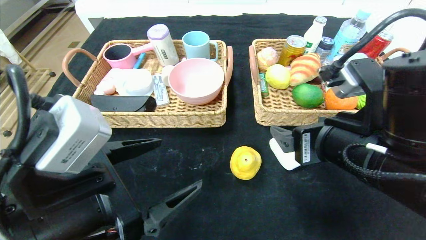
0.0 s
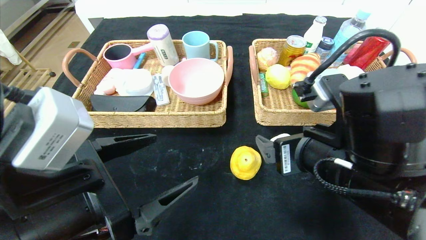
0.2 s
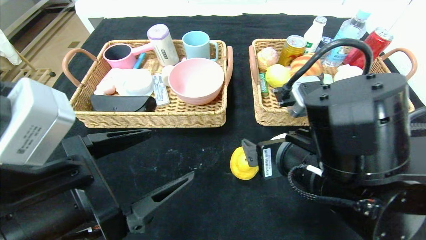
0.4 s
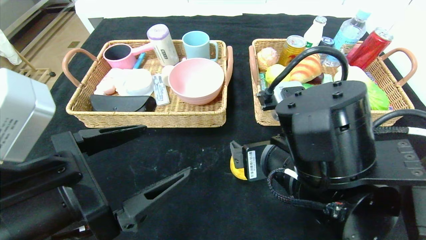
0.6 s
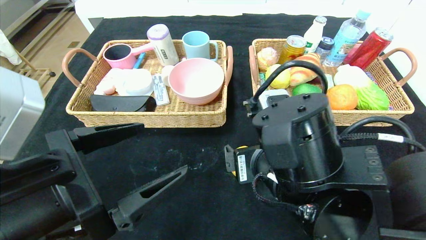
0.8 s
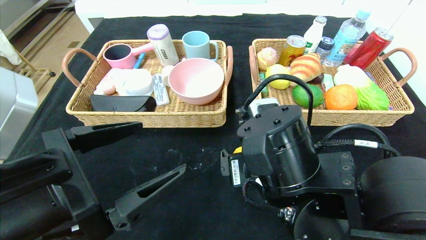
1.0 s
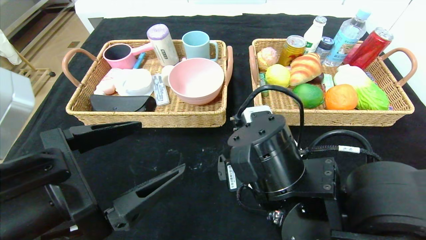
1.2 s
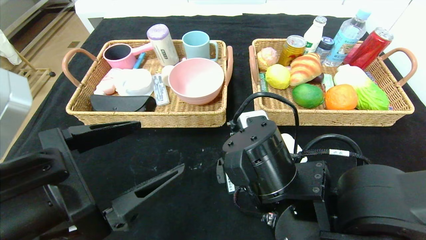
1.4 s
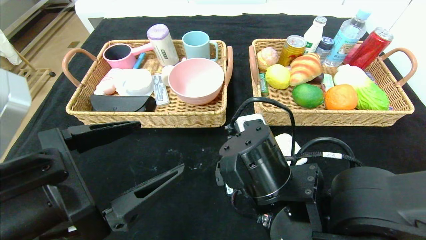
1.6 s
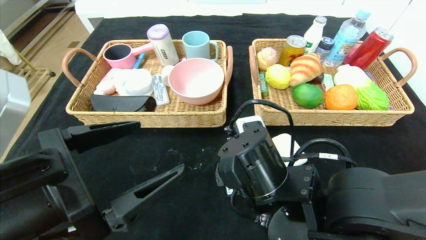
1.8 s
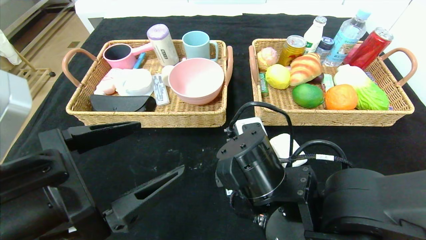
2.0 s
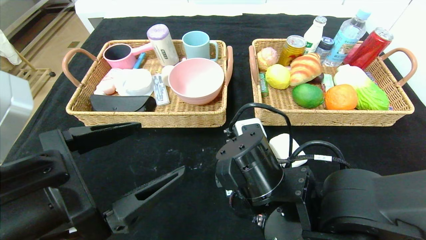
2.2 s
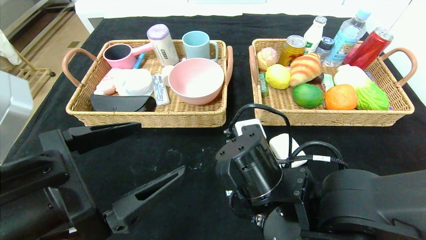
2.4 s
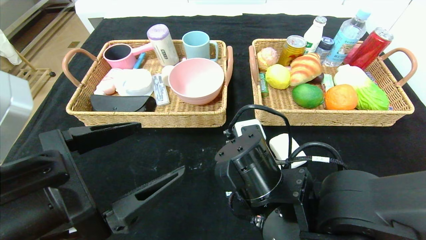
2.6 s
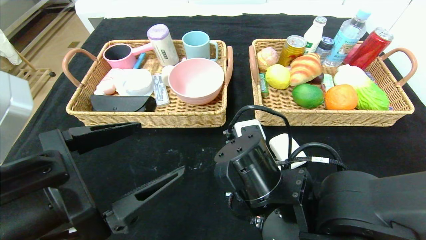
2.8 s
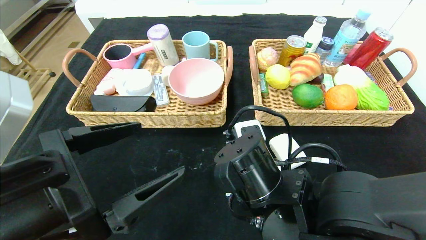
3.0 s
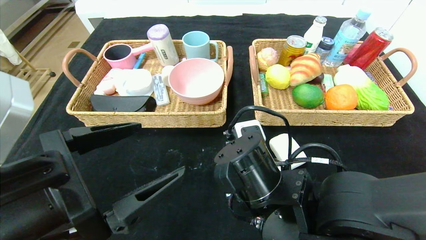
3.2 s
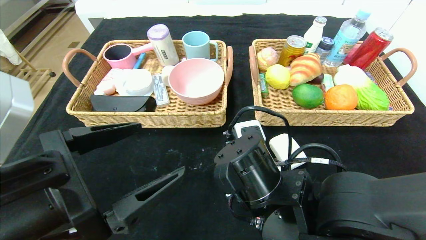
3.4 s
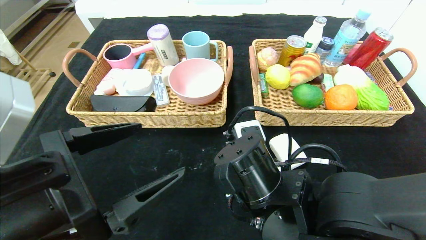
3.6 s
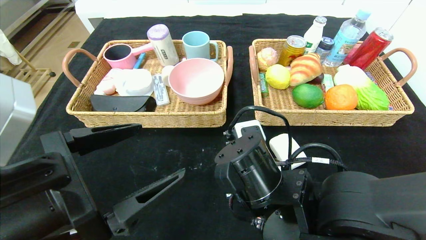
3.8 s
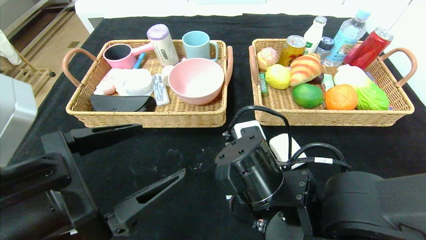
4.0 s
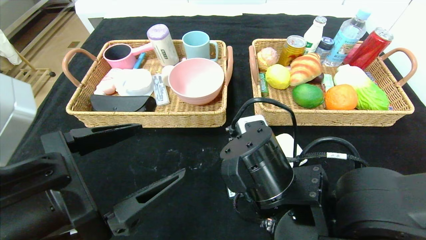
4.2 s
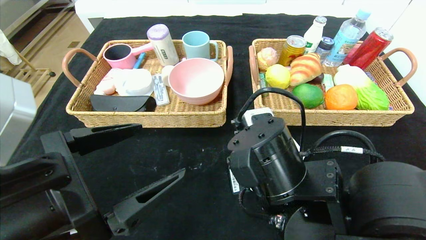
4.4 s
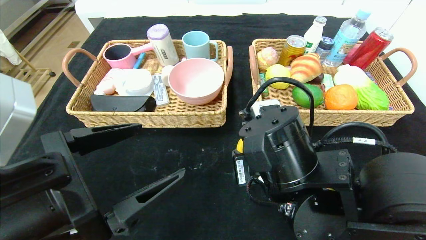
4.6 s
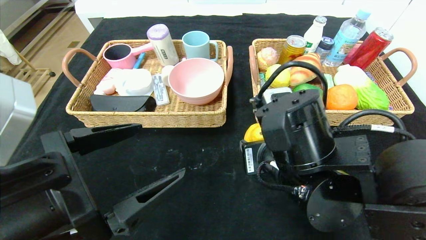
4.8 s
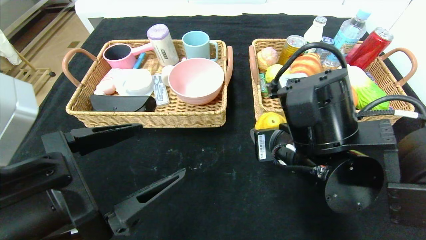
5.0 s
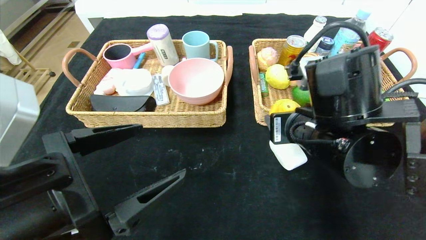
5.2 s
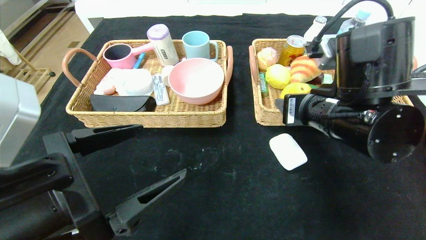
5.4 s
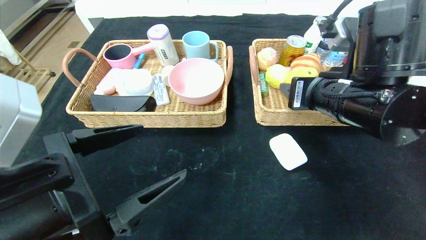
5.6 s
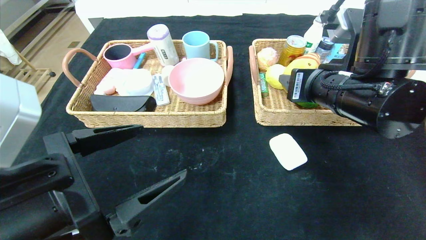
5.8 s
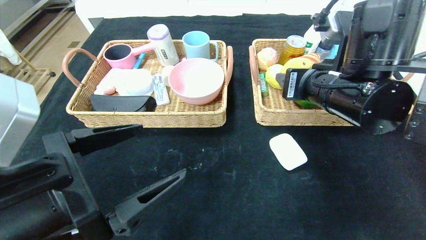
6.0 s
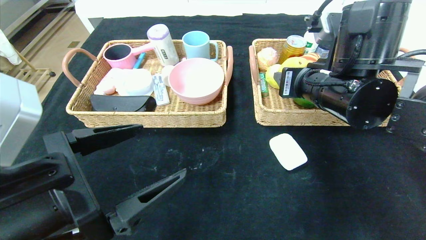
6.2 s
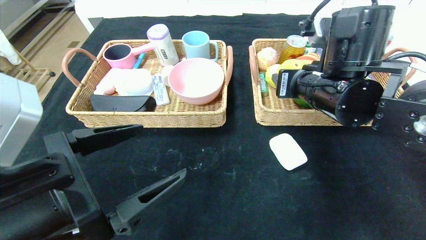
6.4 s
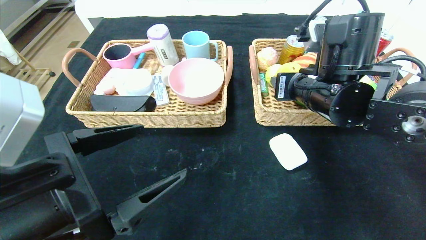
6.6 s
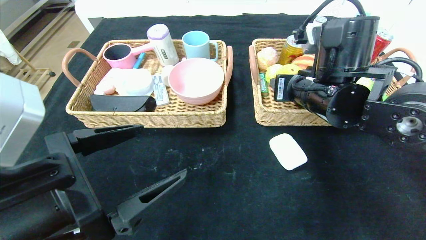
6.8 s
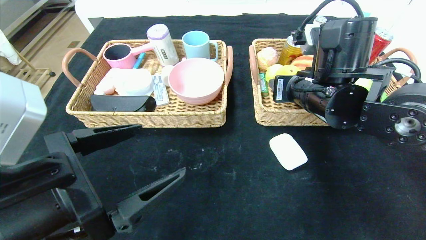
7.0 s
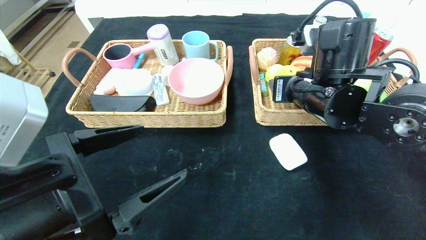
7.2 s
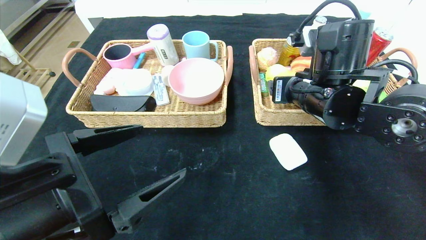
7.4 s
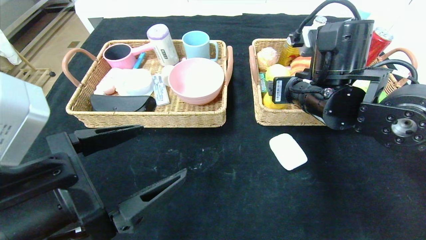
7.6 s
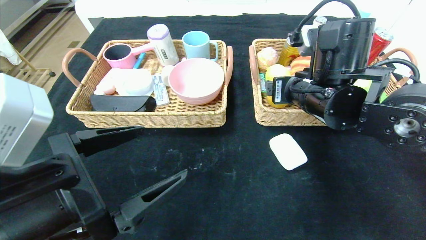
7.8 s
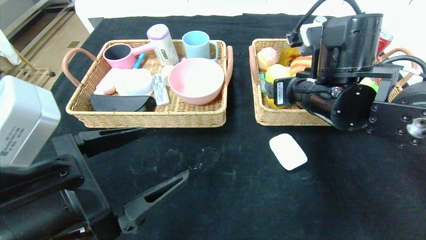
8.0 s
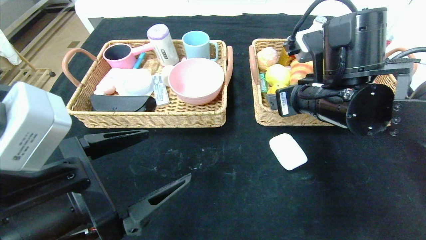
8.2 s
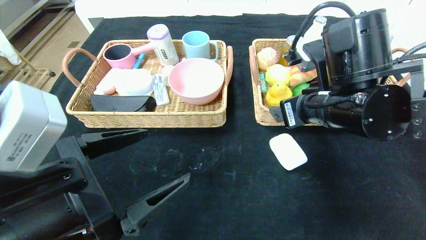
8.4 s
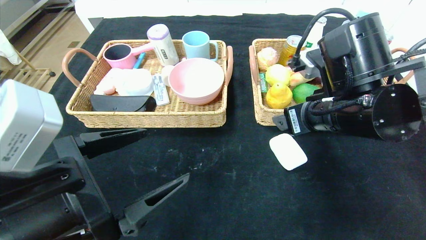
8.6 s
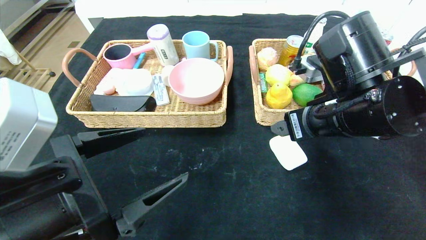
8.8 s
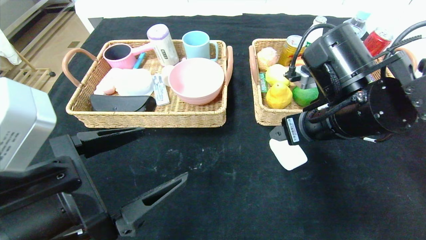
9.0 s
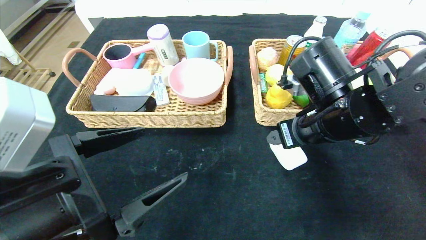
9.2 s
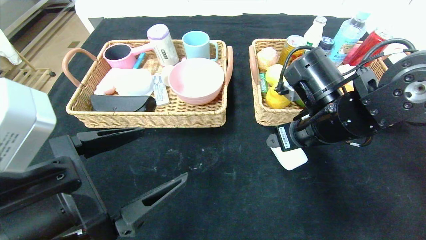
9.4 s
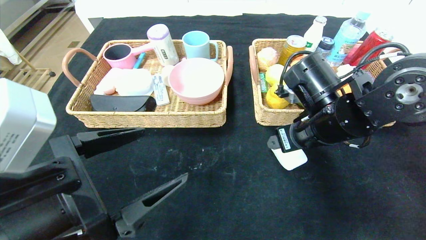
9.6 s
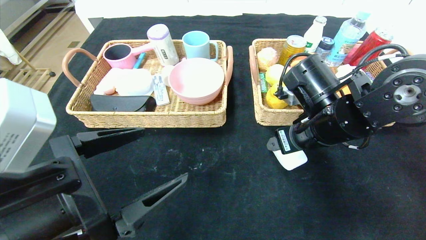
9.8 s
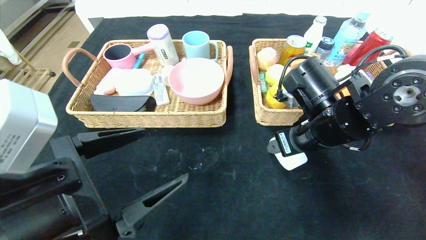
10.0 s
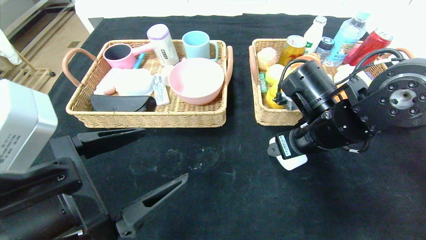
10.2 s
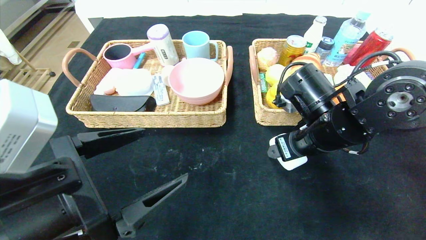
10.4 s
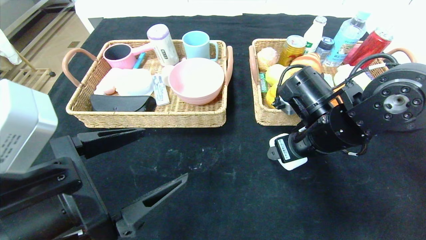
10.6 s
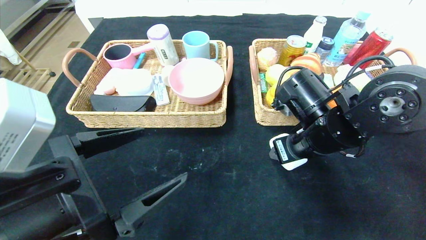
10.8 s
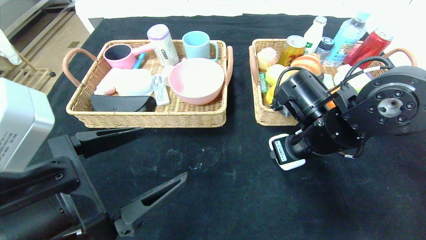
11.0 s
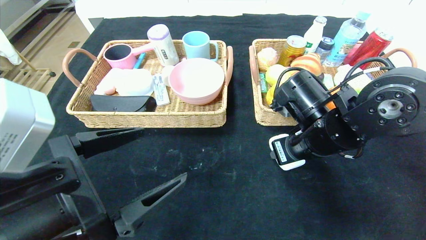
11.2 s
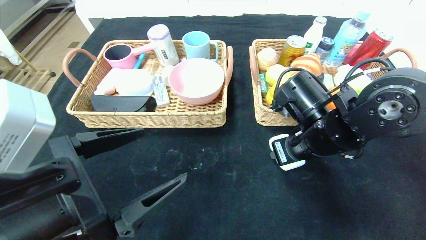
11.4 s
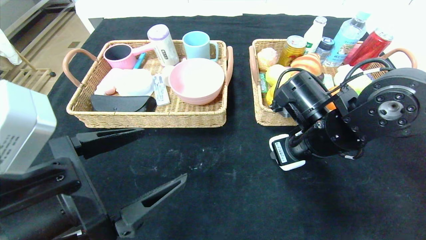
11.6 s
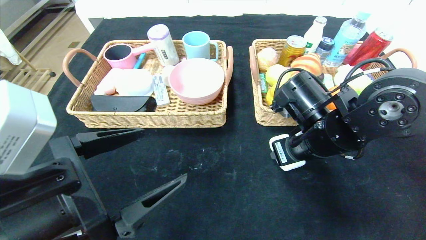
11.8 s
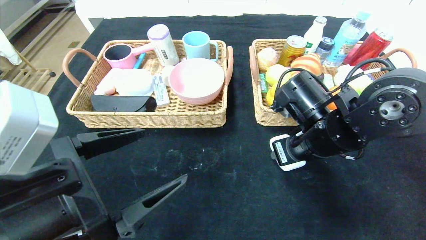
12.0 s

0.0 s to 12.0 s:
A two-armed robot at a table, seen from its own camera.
Step, 0.0 to 8.4 s: Pick up the pear and put it in the right basket.
0.0 to 1.6 s: The right gripper goes some 10 cm to the left and downward.
1.6 to 3.0 s: The right gripper closes its fingers.
3.0 to 4.4 s: The grippers stay close to where they were, moving slightly.
4.4 to 6.0 s: The right gripper is displaced upward, to the right and forward by about 15 cm.
6.0 to 7.6 s: The right gripper opens its fingers.
7.6 to 9.0 s: The right gripper shifts by roughly 5 cm.
9.0 to 10.4 s: The grippers move only a little.
10.4 to 12.0 s: The right gripper closes its fingers.

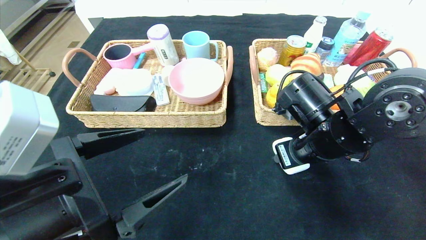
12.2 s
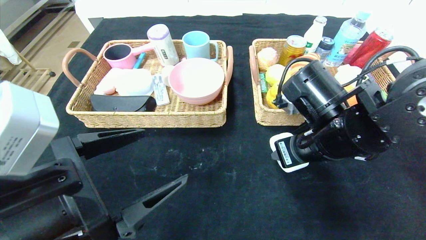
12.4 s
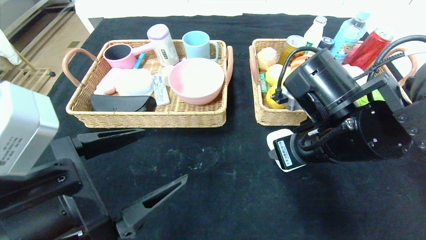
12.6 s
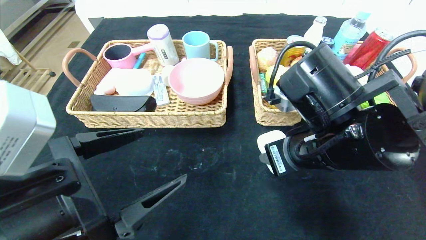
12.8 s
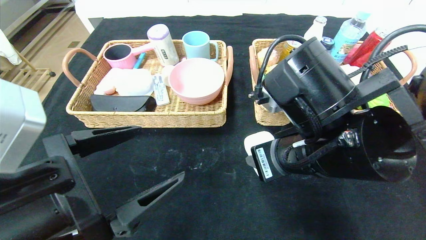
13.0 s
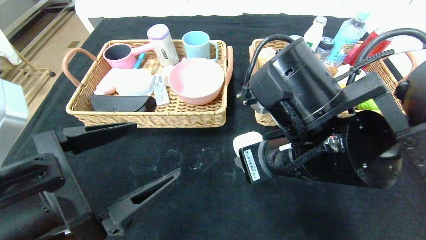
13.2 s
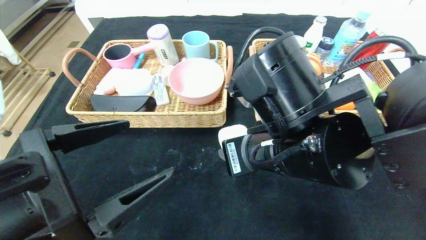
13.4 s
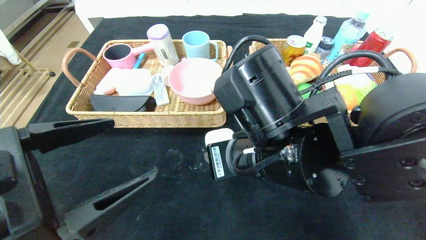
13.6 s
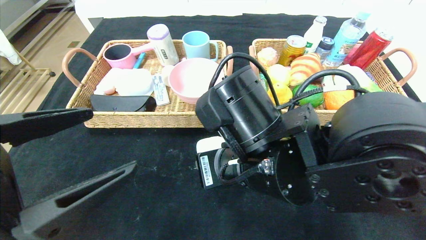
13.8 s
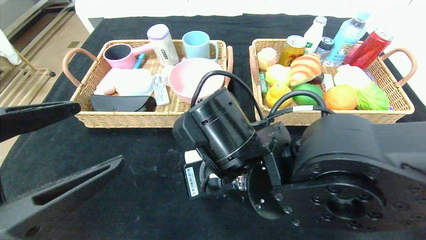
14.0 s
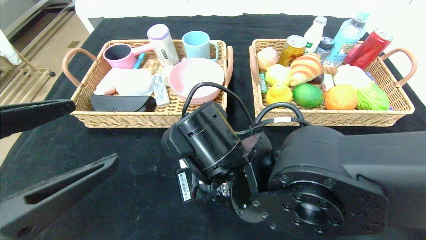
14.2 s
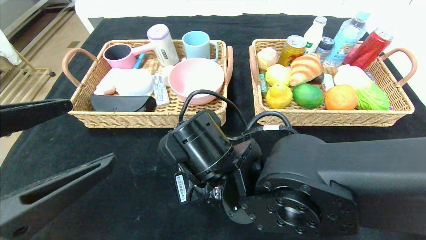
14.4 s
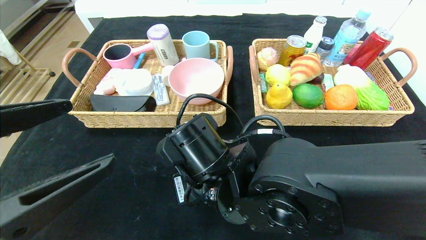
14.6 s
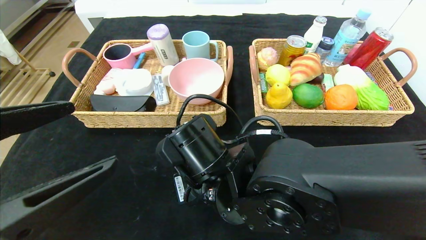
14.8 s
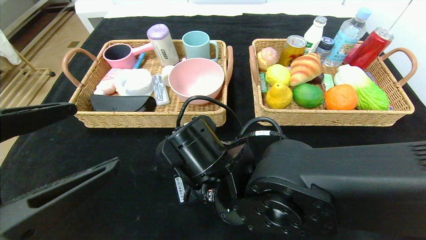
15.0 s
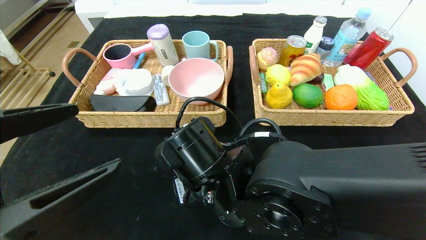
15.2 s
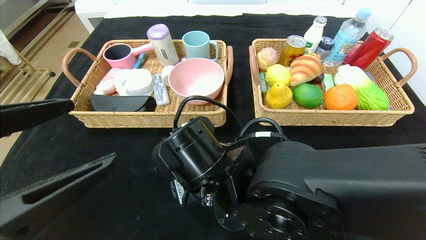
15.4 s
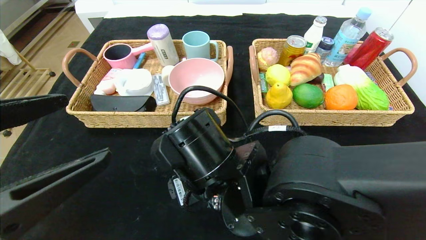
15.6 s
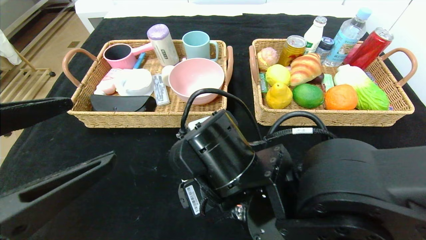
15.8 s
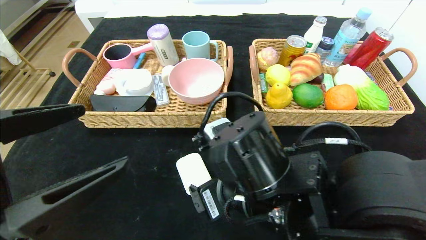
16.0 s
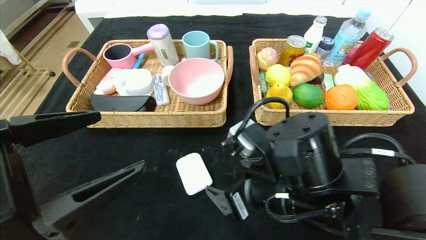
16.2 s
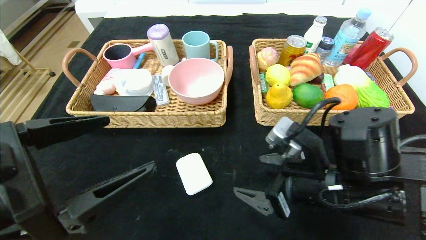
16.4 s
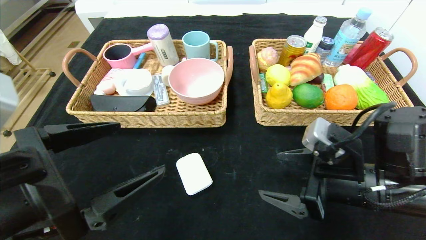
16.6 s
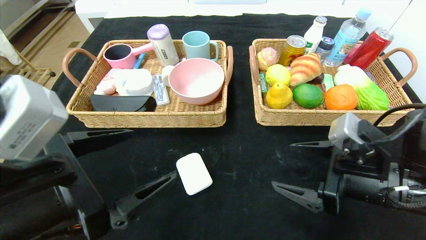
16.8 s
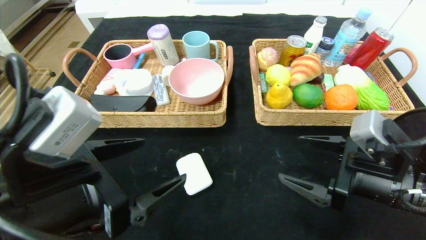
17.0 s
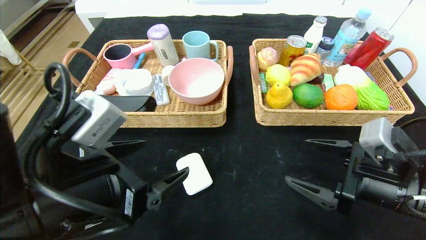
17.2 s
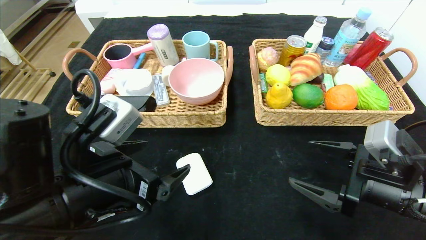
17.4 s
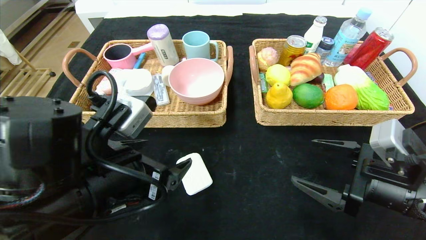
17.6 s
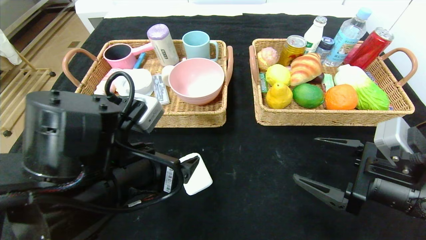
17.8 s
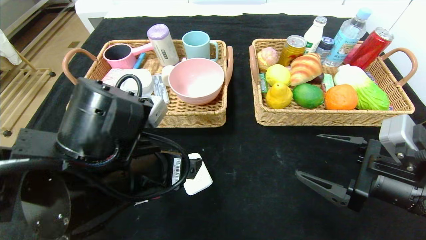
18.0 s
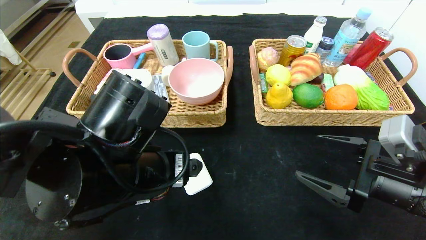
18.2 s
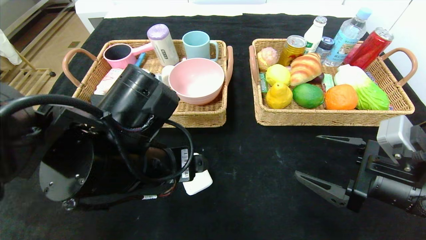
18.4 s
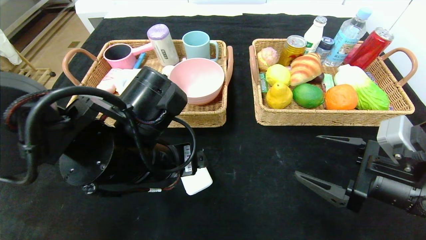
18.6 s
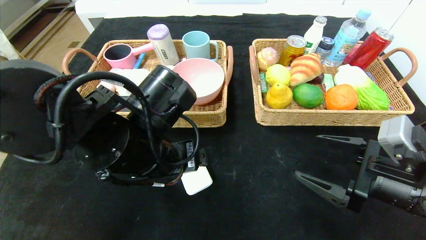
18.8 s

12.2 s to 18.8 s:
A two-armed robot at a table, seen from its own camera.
Step, 12.2 to 16.4 s: Place the soap in the center of the table.
12.2 to 13.8 s: The right gripper heads to the left and backward, covering roughly 15 cm, while the left gripper ends up about 5 cm from where it was.
13.8 to 15.4 s: The right gripper goes some 5 cm downward, and opens its fingers.
15.4 to 17.2 s: The right gripper heads to the right, covering about 25 cm; the left gripper goes about 10 cm forward, to the right and downward.
17.2 to 18.8 s: The left gripper heads forward and to the right, covering some 10 cm.
